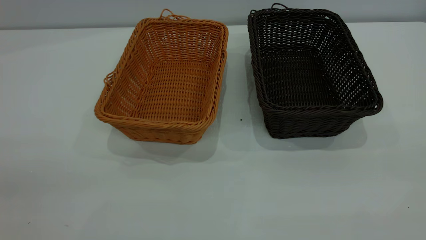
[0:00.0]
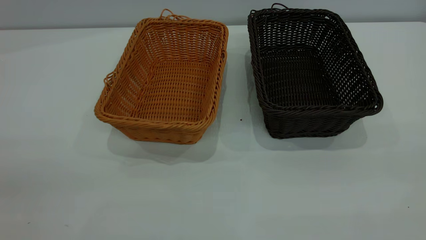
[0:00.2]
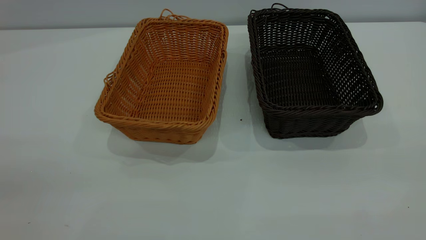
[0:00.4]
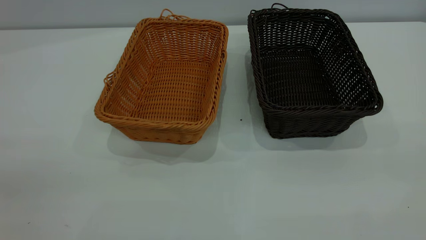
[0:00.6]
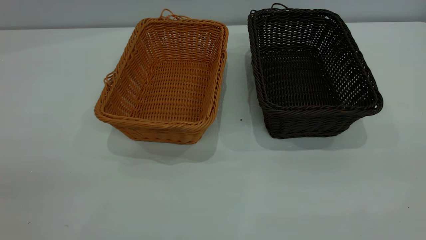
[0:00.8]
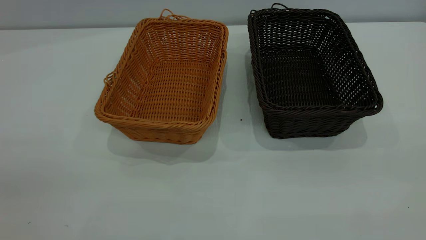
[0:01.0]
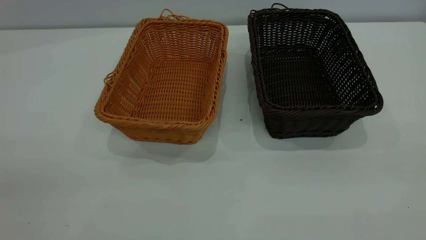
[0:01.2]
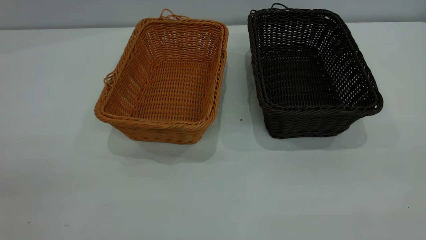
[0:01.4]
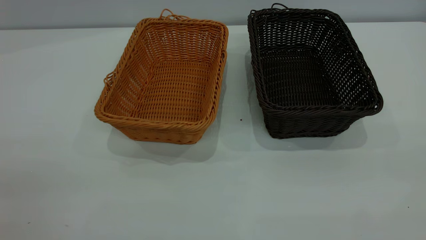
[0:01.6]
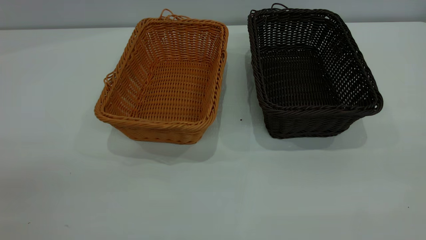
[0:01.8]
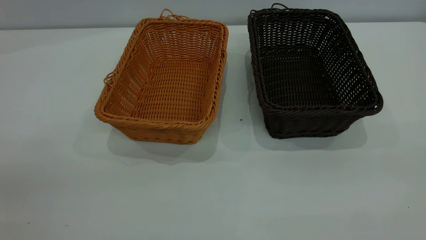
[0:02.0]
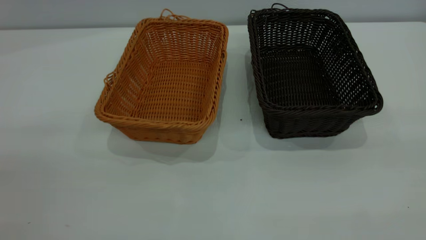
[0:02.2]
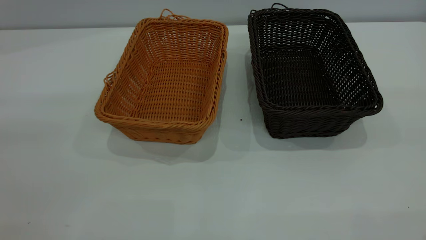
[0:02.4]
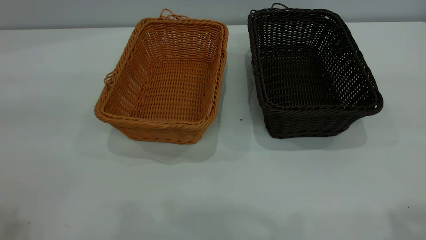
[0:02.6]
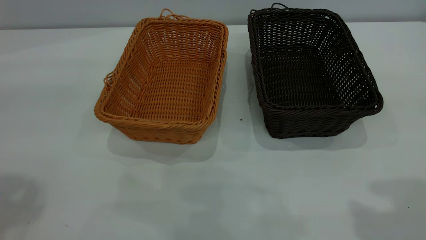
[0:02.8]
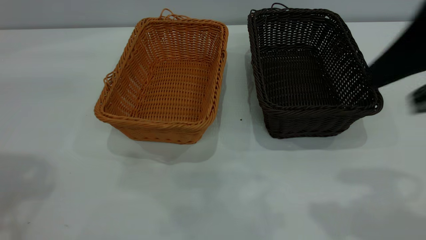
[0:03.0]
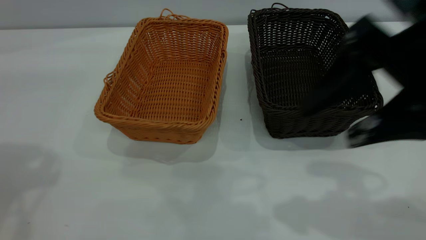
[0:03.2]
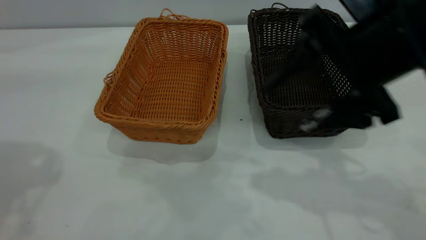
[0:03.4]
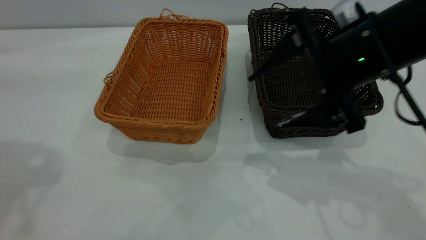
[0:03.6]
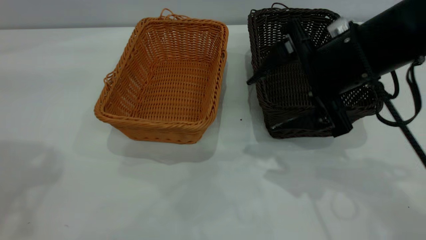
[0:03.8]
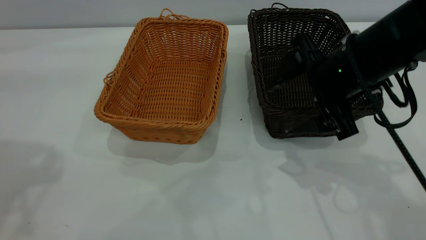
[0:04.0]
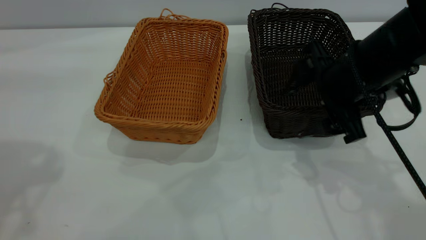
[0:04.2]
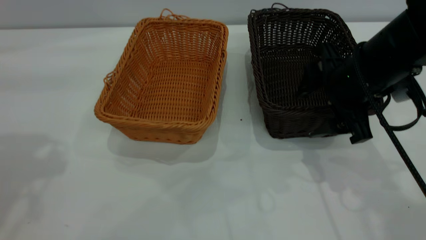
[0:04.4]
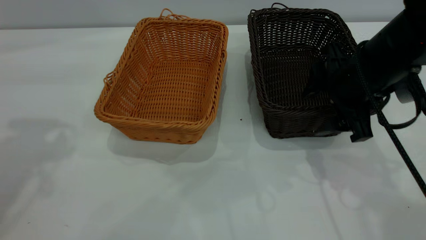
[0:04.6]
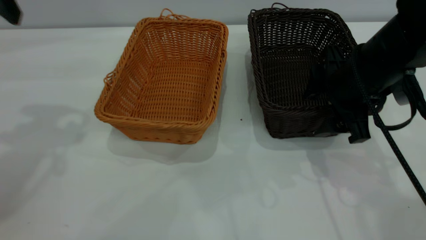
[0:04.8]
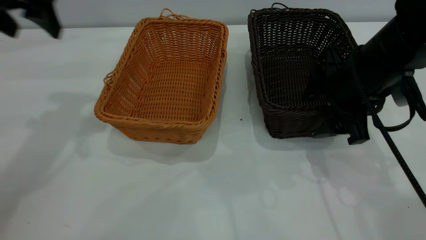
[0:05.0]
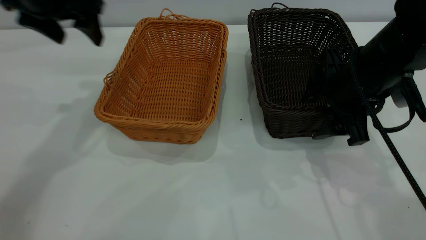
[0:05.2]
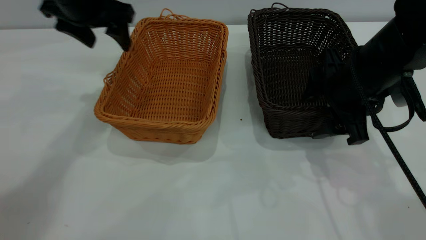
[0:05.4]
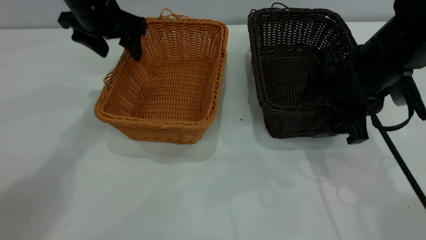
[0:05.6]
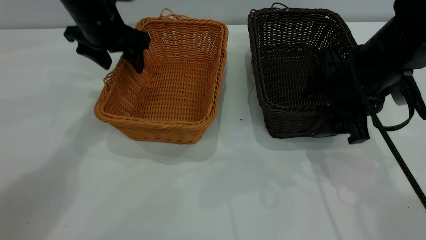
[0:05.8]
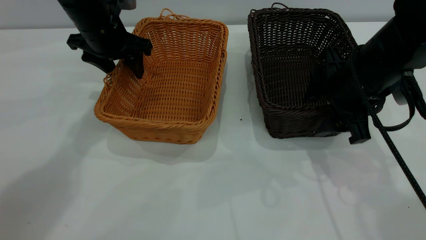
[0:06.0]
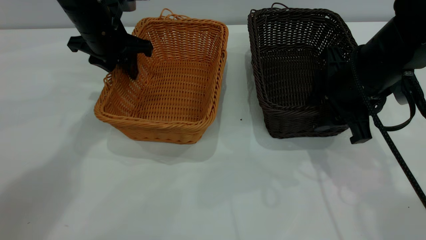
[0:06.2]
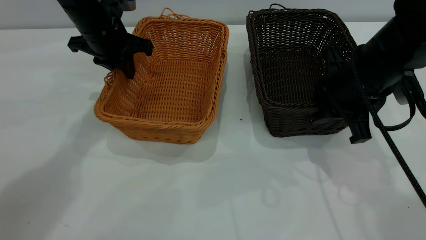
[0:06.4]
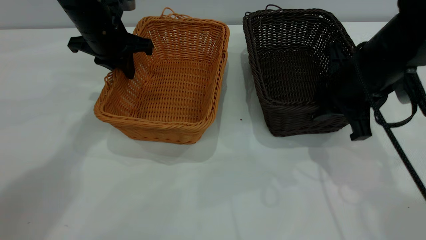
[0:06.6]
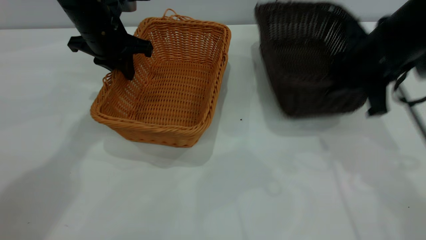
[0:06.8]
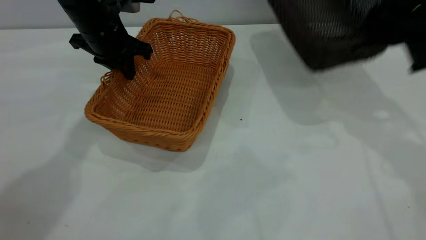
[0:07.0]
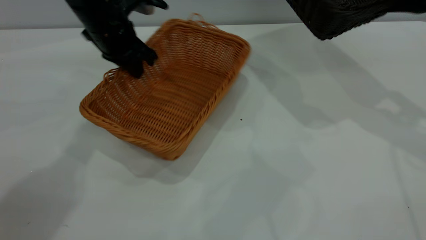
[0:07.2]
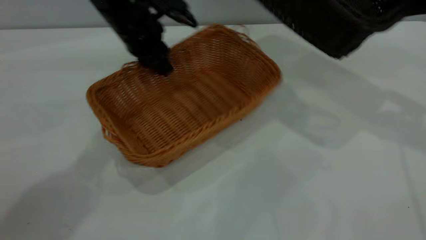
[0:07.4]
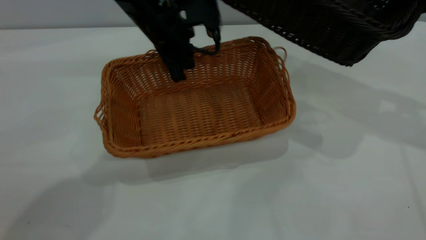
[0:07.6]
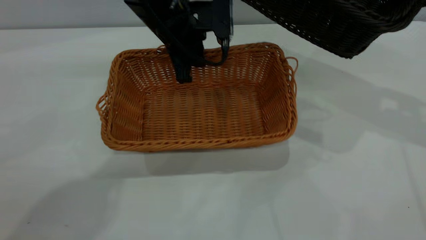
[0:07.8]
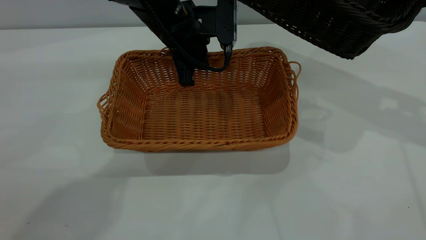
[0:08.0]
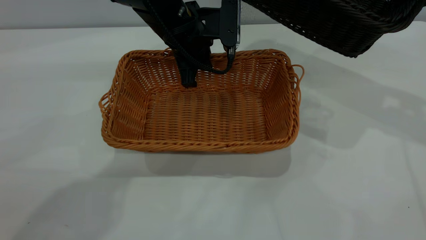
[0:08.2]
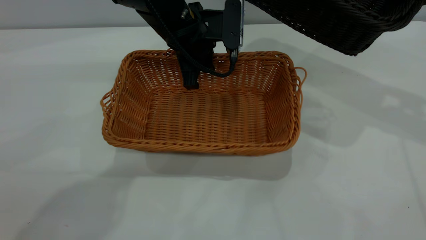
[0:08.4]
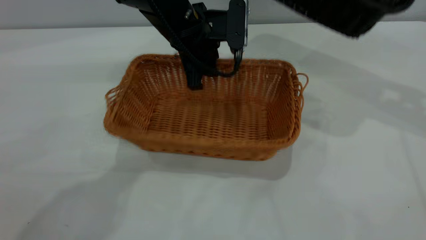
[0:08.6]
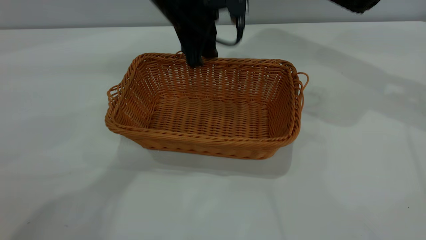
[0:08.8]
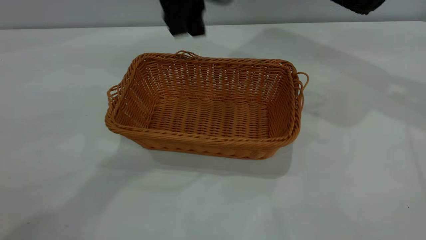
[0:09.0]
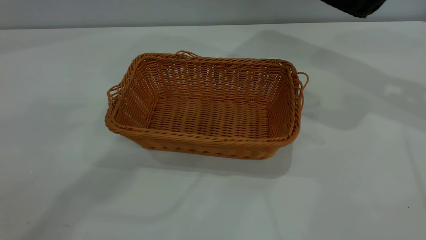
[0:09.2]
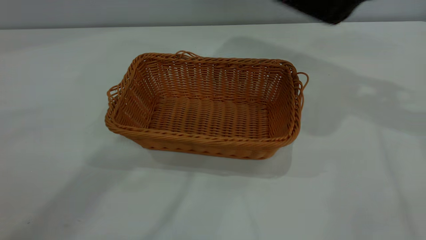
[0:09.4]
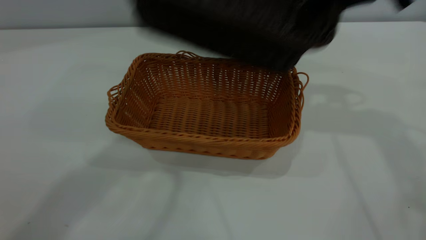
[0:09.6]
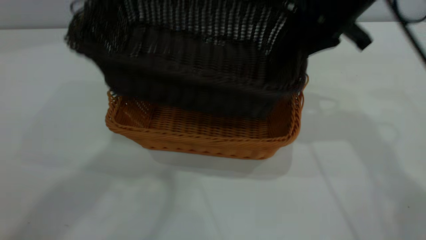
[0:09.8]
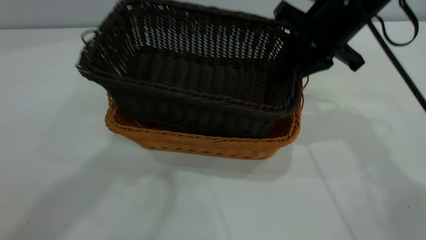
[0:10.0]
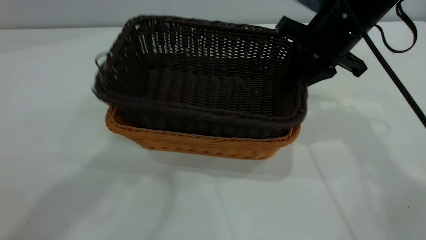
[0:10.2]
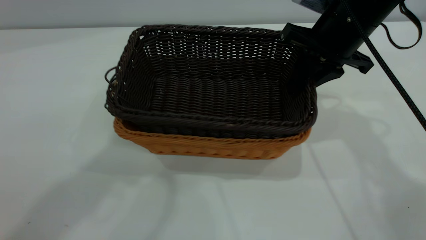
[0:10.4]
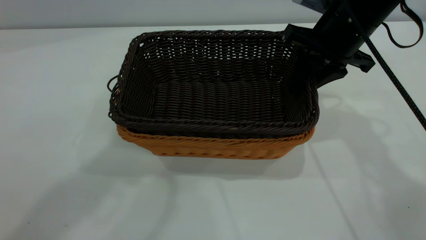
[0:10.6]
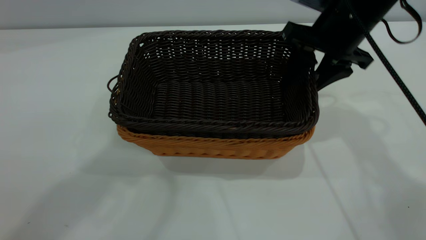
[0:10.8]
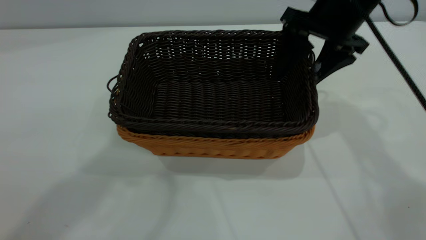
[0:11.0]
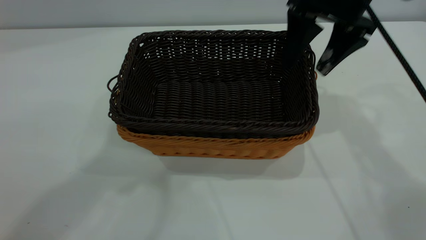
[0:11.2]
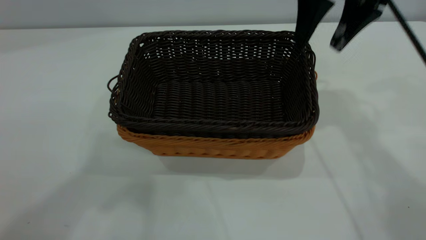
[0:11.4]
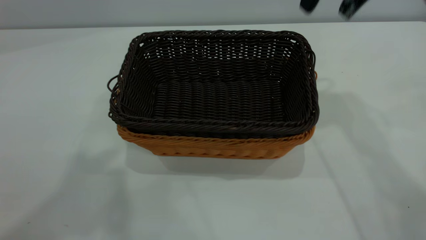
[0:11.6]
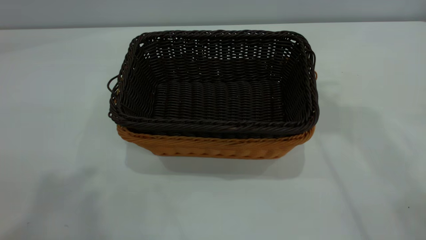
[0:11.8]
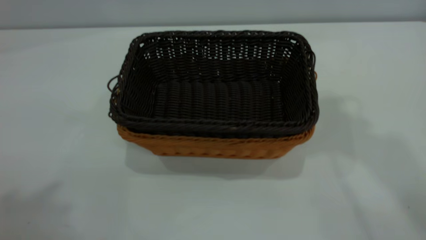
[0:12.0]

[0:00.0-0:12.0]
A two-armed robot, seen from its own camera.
Task of the whole recording: the left gripper grasp the brown basket and place it in the center of the table, the right gripper grasp the black basket and place it inside the brown one.
Step, 0:00.0 to 0:06.8: Pick up the light basket with the right gripper.
Step, 0:07.0 to 0:08.8: Place the light-colored basket in the center.
Step, 0:09.0 to 0:11.4: Place the dark basket on top of the light basket.
0:00.0 to 0:01.6: Neither gripper changes place.
0:01.6 to 0:03.0: The right gripper travels forward by approximately 20 cm.
0:03.0 to 0:04.4: The right gripper goes some 20 cm downward and forward.
0:04.4 to 0:06.0: The left gripper goes some 30 cm downward, forward and to the right.
0:06.0 to 0:07.6: The left gripper goes some 10 cm to the right, and closes, while the right gripper goes roughly 20 cm upward and to the right, and closes.
0:07.6 to 0:09.0: The left gripper travels upward by about 10 cm, and opens up, while the right gripper moves about 5 cm.
0:09.0 to 0:10.4: The right gripper heads to the left and downward, covering about 20 cm. Meanwhile the left gripper moves upward and backward, roughly 25 cm.
0:10.4 to 0:12.0: The right gripper goes roughly 30 cm upward, and opens its fingers; the left gripper travels backward, to the left and upward by some 20 cm.

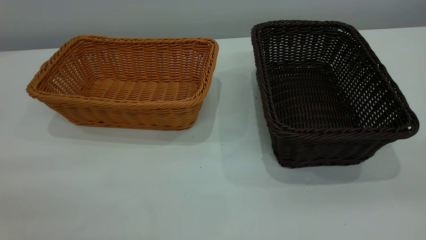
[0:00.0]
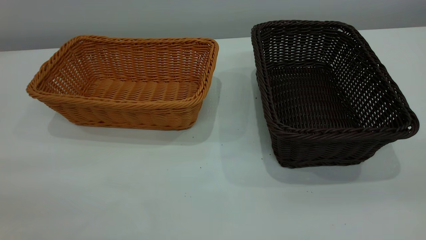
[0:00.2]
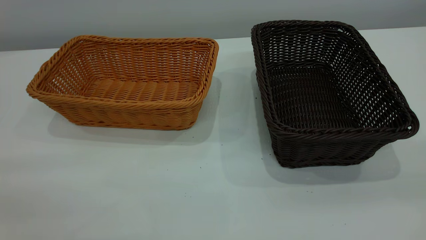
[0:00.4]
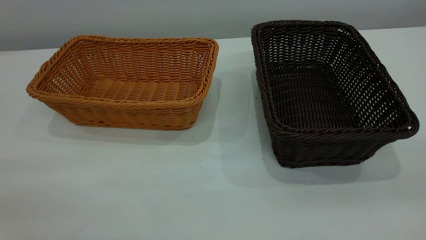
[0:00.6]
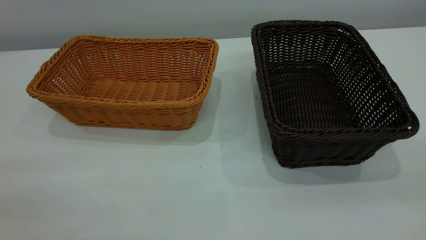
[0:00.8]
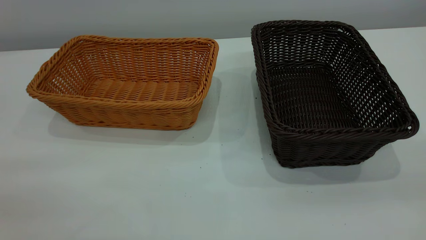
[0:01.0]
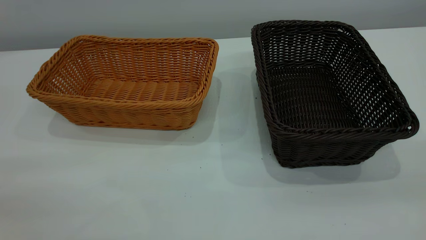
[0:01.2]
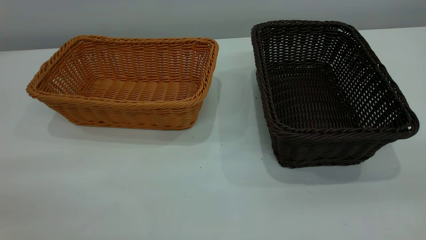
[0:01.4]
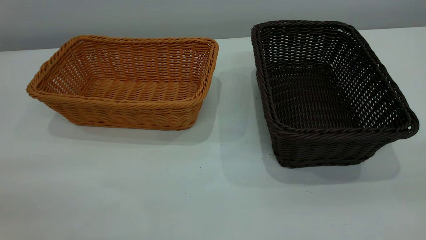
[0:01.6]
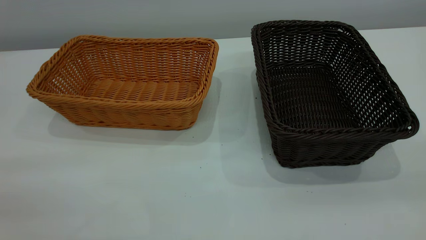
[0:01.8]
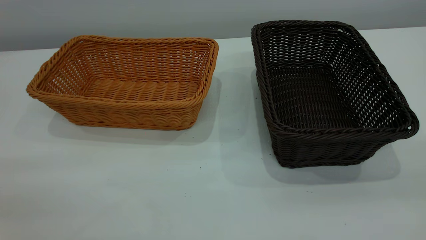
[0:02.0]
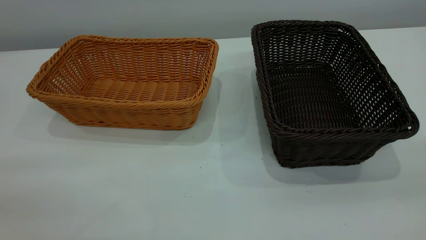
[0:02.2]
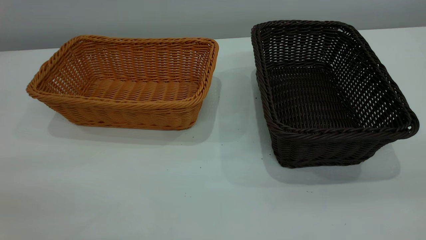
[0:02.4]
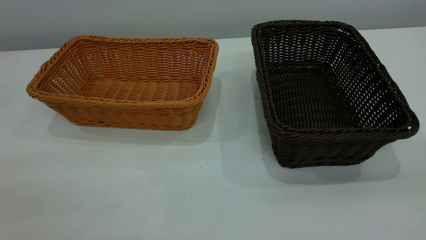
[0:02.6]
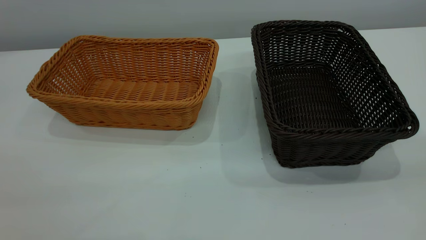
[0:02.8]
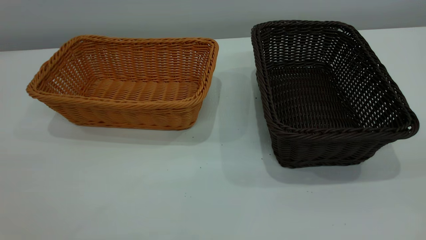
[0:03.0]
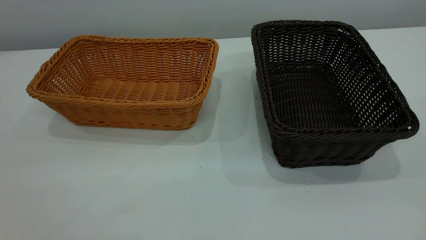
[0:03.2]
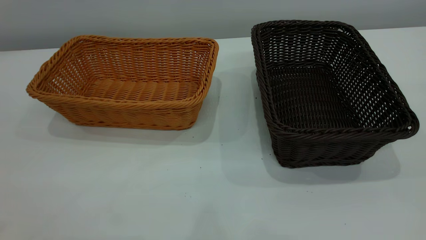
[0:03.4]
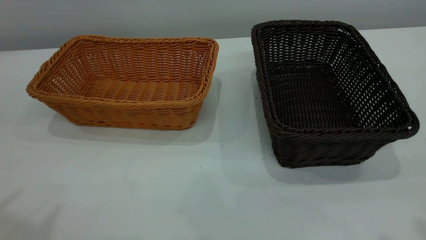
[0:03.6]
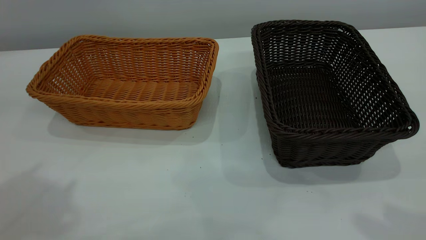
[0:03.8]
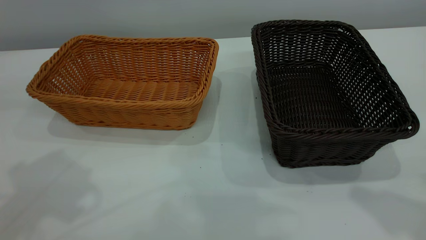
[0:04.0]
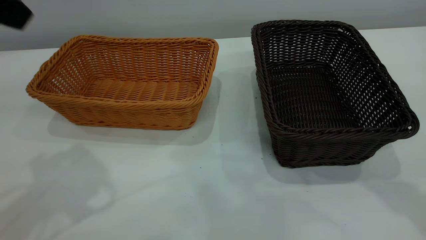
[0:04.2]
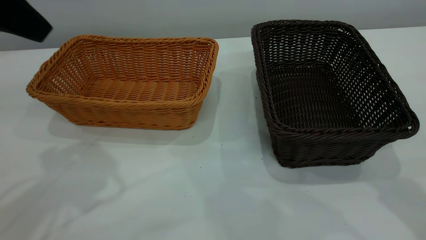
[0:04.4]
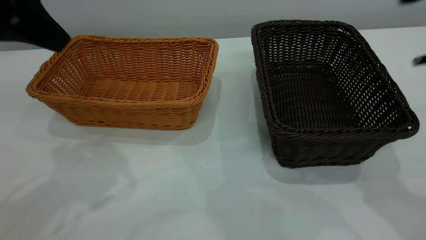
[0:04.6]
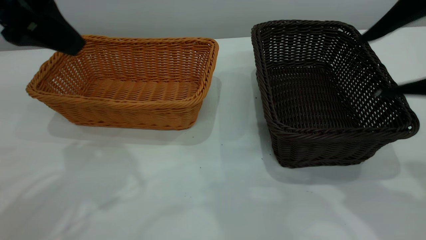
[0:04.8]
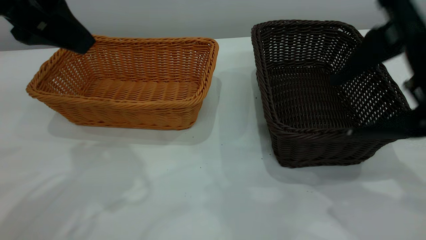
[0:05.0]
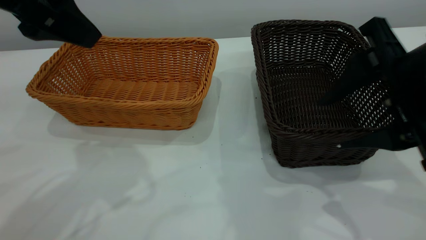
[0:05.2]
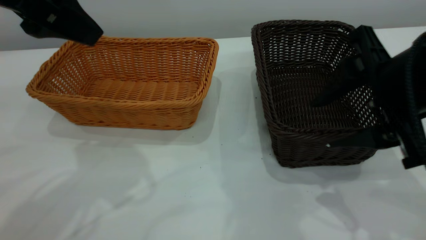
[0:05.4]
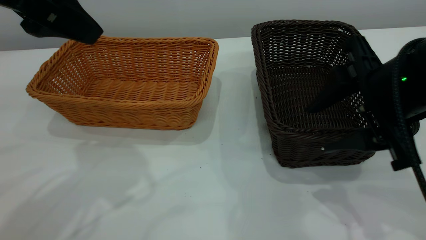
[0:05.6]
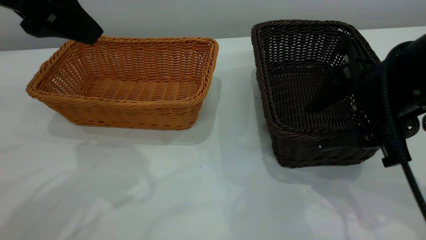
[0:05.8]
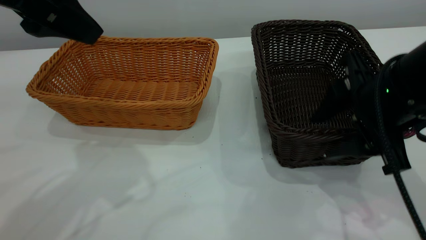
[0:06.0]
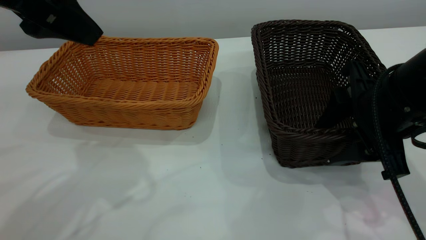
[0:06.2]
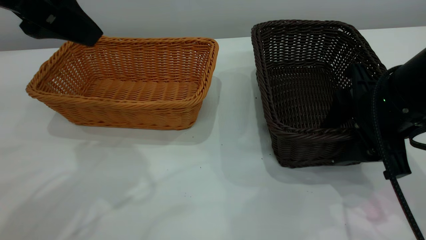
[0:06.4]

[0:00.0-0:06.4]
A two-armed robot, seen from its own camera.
Task of the whole recording: the left gripper grasp the brown basket and place it in the center of the table, the right gripper grasp the black basket and place it inside the brown one.
0:00.0 to 0:01.6: Both grippers stay put.
0:03.2 to 0:04.8: Both grippers travel together forward and downward, about 25 cm.
0:04.8 to 0:06.4: The right gripper goes about 15 cm downward and forward.
